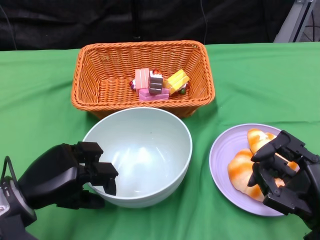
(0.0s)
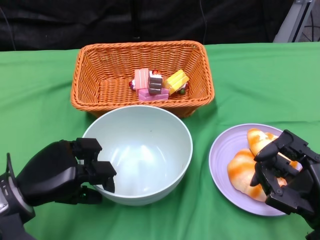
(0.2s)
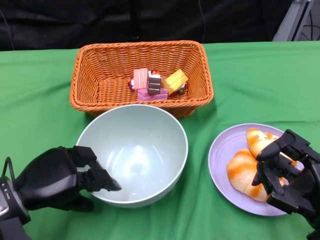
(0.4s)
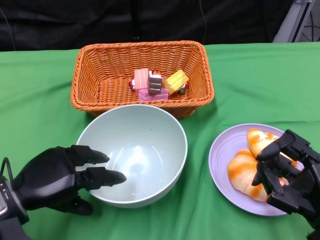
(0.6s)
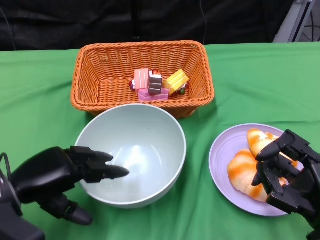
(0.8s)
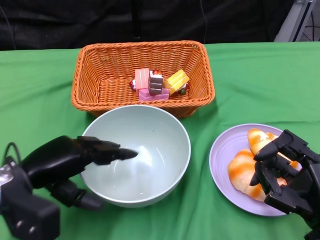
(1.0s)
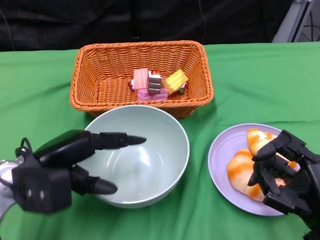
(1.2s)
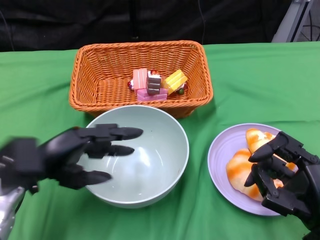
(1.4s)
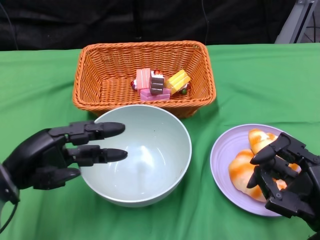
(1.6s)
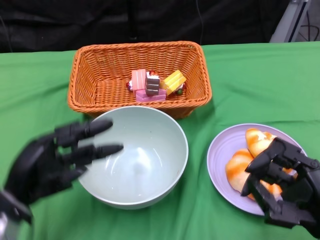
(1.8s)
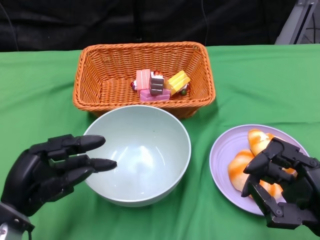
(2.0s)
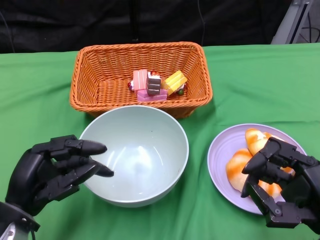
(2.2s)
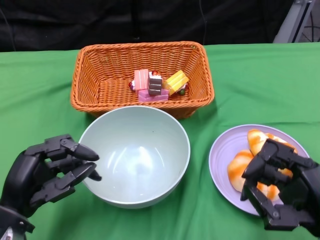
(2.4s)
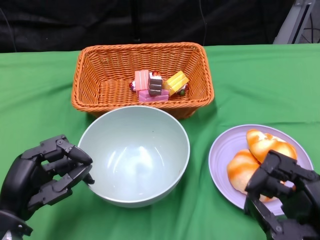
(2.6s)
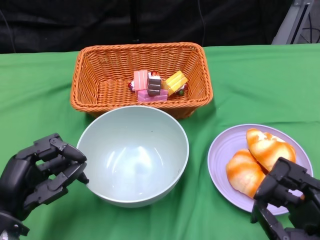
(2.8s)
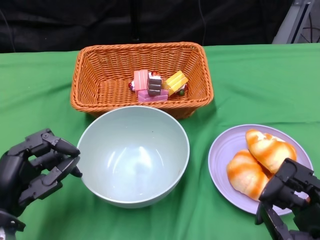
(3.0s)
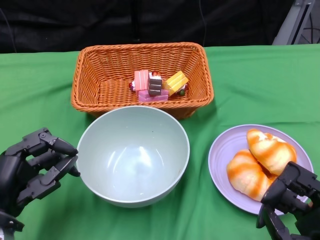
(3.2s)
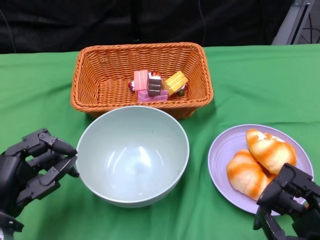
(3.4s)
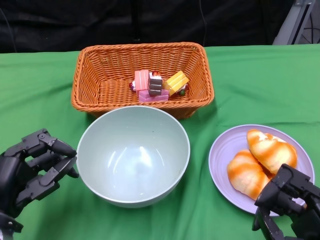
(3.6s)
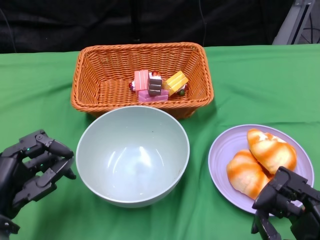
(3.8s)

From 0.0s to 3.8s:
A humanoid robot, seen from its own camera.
From 1.2s to 2.6s: The left hand shifts about 5 cm backward.
From 2.6s to 3.8s: The hands move only a little.

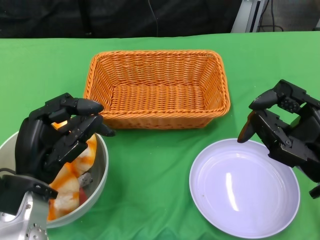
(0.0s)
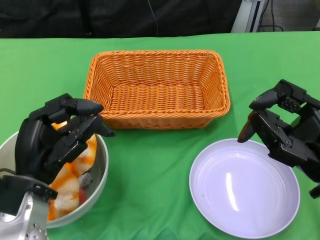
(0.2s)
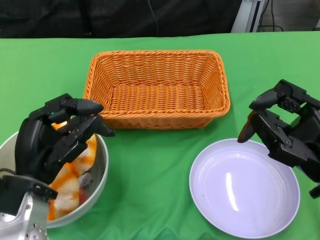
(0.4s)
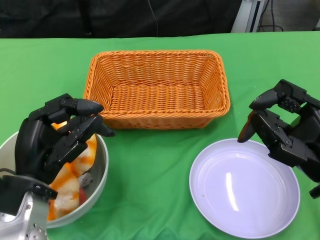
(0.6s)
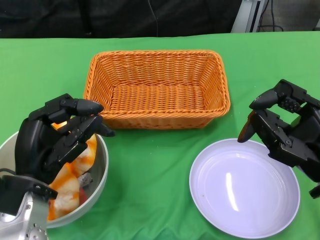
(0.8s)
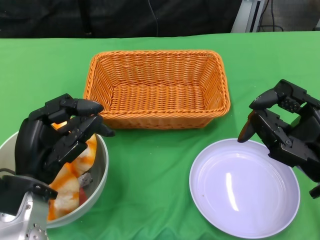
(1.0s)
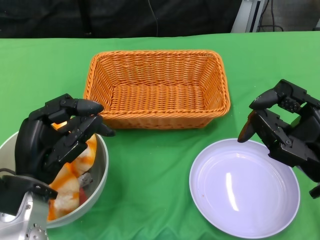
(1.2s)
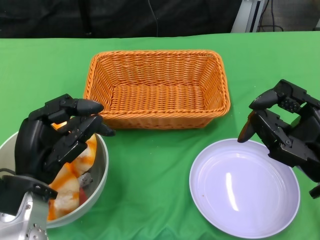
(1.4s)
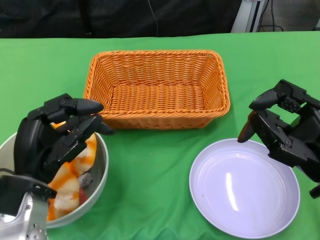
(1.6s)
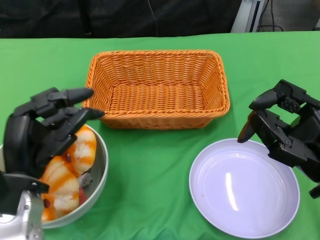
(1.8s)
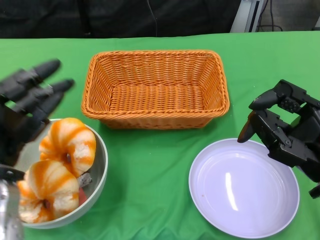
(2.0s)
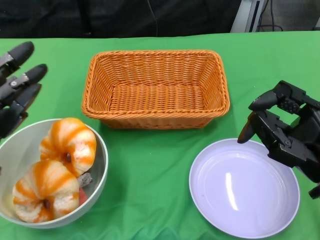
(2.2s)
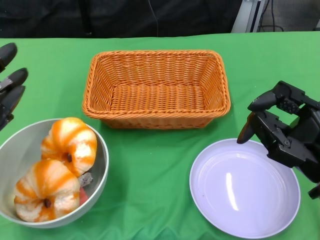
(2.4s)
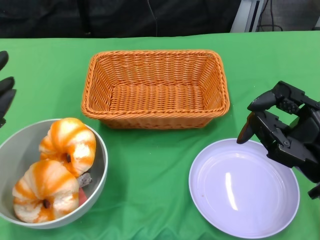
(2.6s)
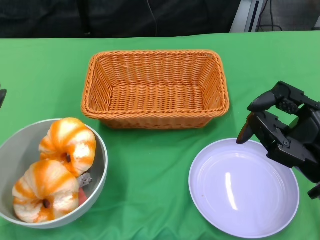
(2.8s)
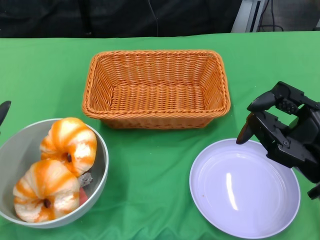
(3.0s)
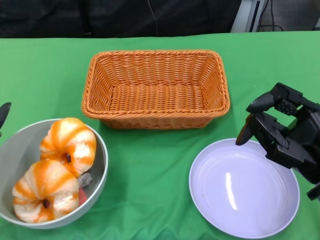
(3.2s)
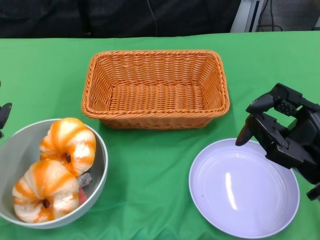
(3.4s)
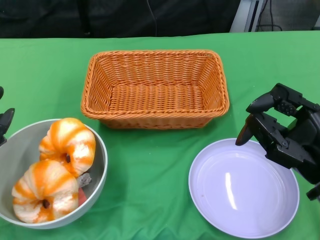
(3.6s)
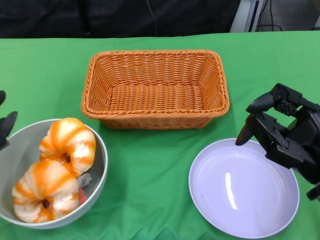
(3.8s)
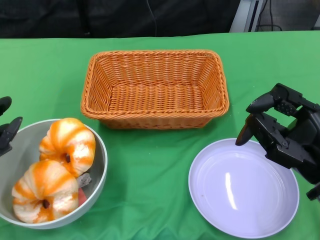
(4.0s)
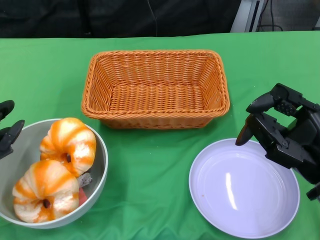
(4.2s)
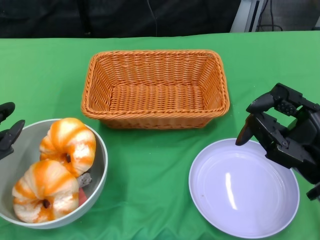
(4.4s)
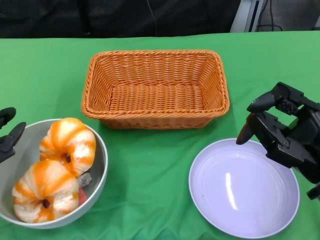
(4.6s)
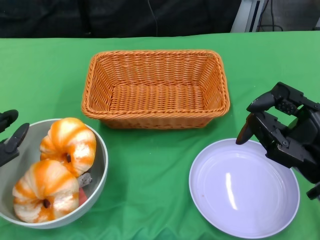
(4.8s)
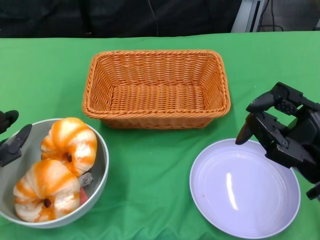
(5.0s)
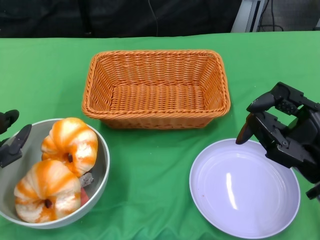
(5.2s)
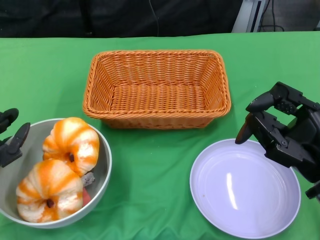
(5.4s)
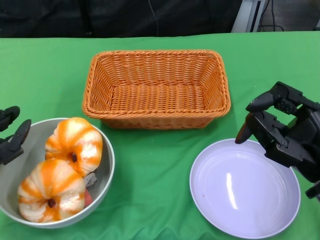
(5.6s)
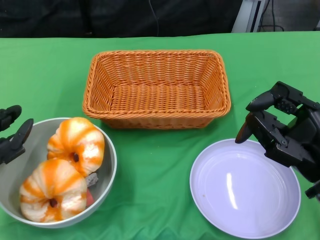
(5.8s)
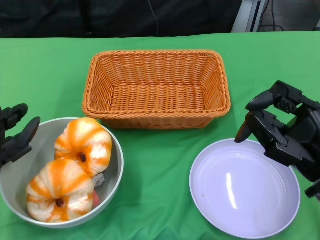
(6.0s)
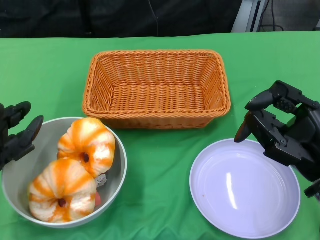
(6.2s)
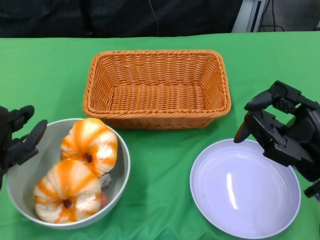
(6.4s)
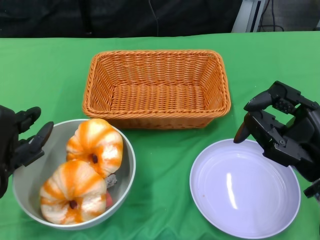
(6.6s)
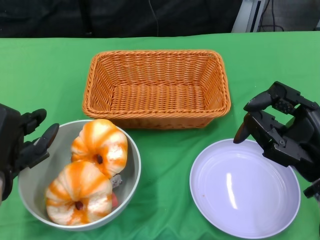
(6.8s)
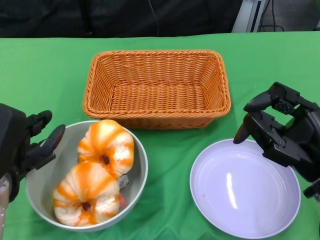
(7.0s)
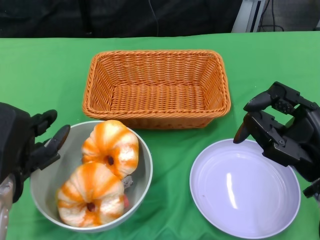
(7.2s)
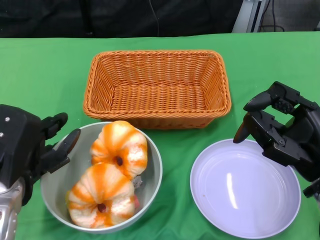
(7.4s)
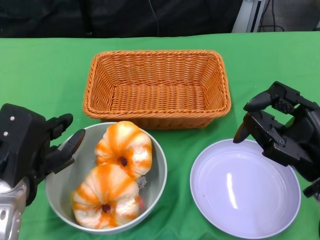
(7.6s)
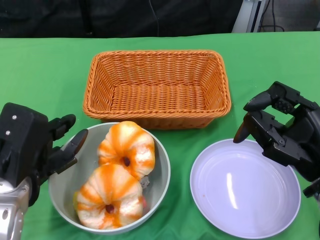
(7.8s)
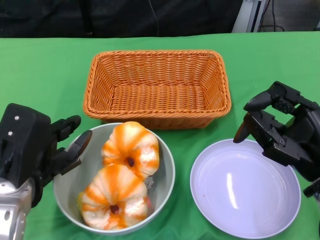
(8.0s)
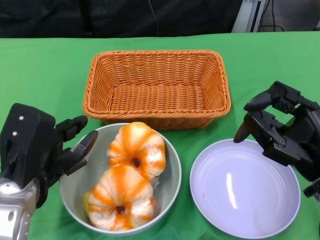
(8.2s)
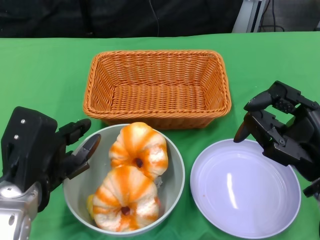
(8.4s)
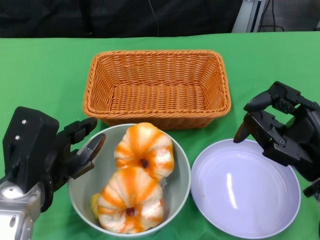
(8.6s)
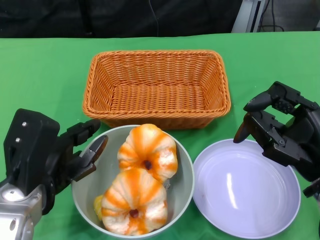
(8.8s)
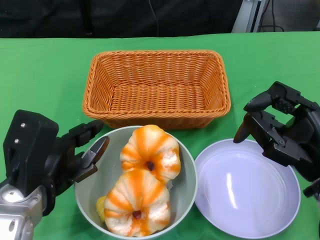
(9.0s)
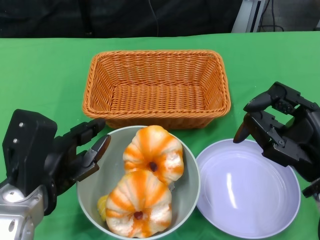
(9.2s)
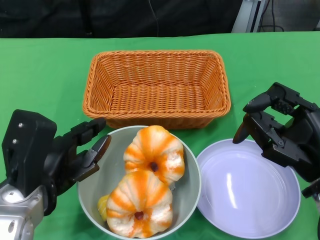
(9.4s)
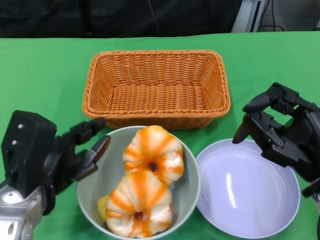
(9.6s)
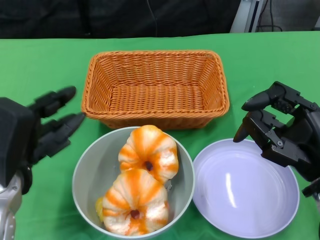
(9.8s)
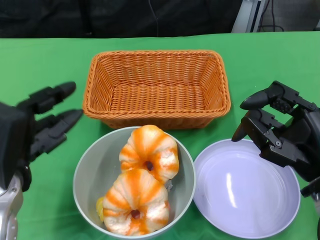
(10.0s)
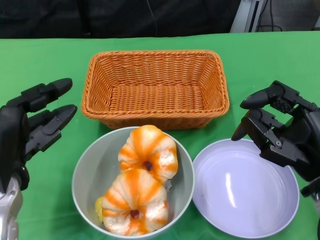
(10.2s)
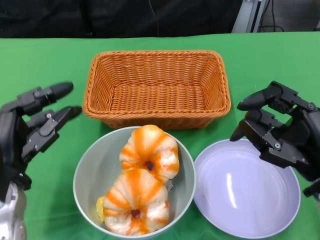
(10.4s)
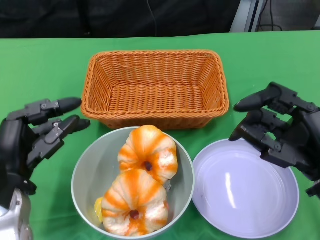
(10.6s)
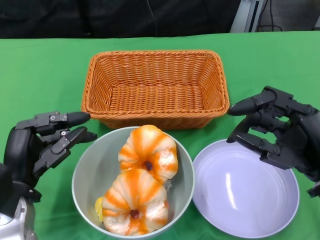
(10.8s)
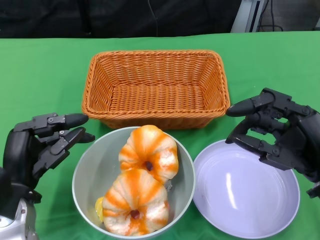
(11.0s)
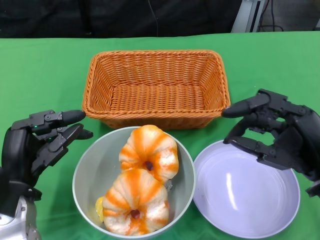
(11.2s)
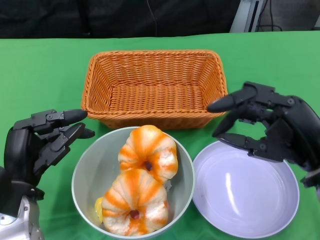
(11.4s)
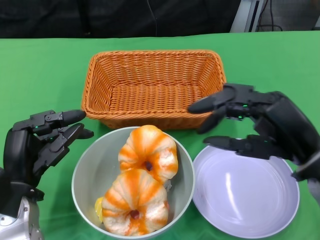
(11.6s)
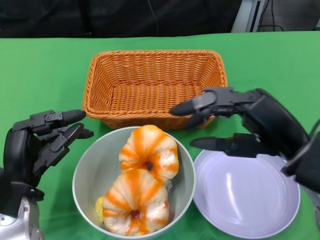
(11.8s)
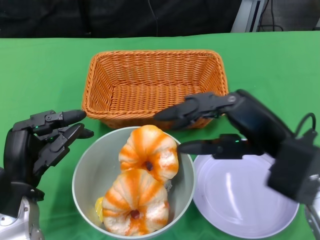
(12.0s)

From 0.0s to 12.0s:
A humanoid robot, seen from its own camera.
Step, from 0.0s to 10.6s: Push the bowl to the center of the table using the left gripper.
From 1.6s to 3.0s: The left hand moves to the left, some 10 cm.
From 3.0s to 4.4s: There are only small adjustments of the hands.
From 4.4s to 6.0s: The hands stay close to where they were, moving slightly.
From 6.0s to 7.6s: The left hand heads to the right, covering roughly 5 cm.
From 10.4s to 12.0s: The right hand goes approximately 5 cm upward and to the left.

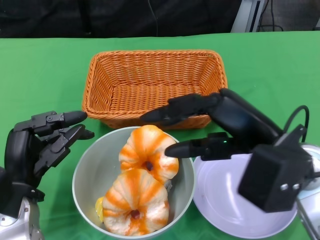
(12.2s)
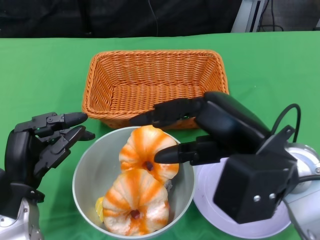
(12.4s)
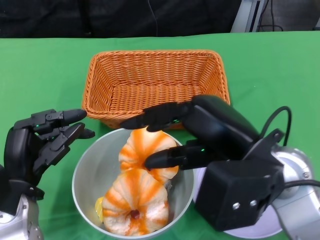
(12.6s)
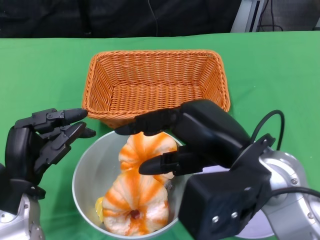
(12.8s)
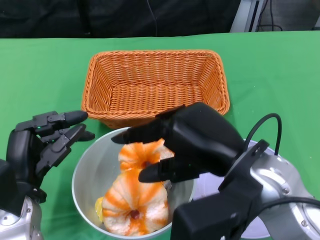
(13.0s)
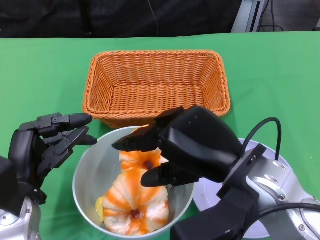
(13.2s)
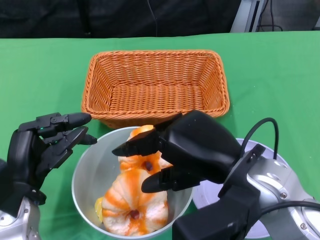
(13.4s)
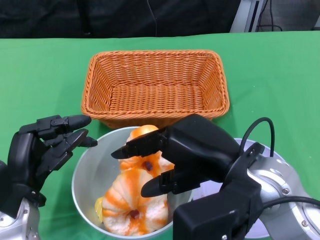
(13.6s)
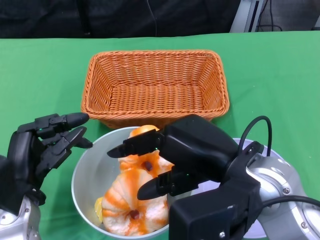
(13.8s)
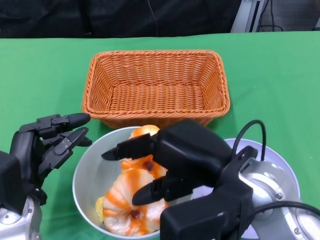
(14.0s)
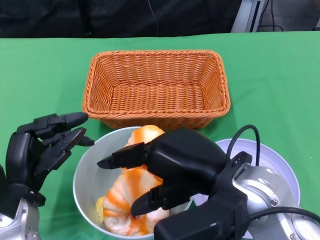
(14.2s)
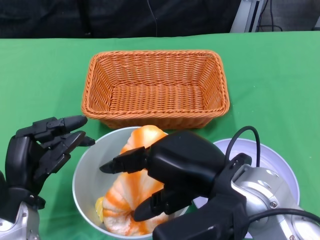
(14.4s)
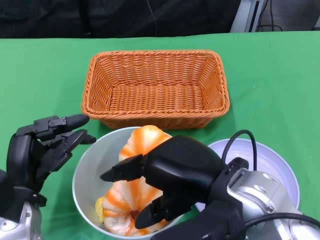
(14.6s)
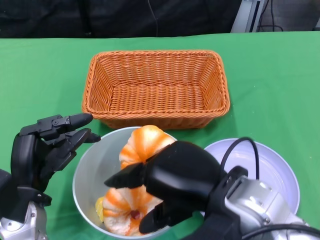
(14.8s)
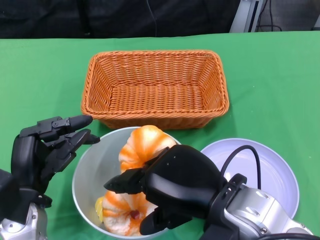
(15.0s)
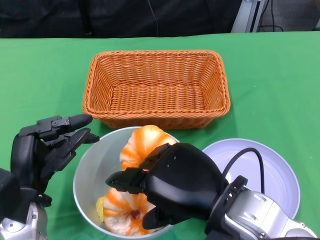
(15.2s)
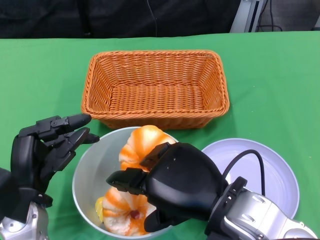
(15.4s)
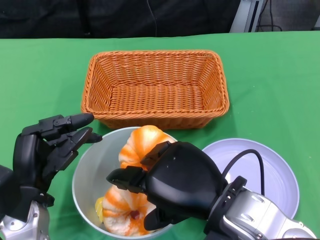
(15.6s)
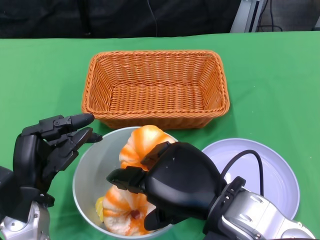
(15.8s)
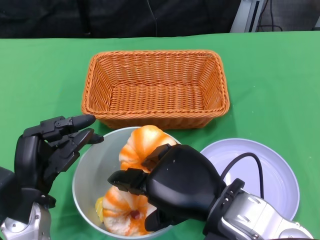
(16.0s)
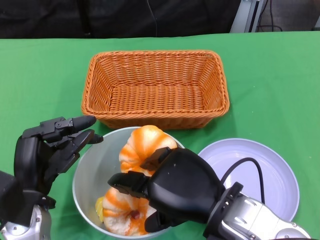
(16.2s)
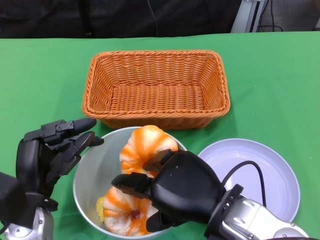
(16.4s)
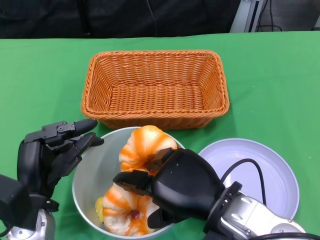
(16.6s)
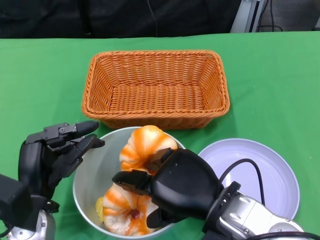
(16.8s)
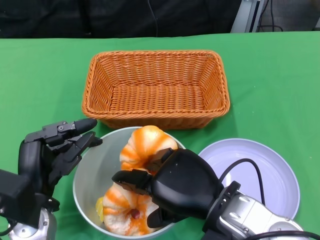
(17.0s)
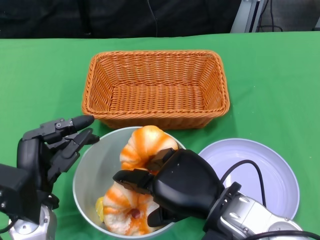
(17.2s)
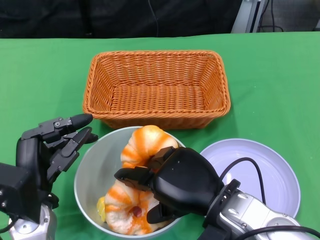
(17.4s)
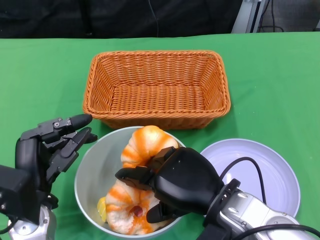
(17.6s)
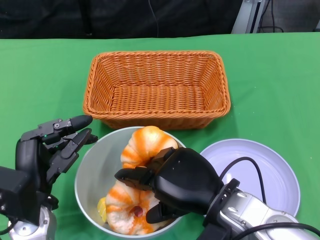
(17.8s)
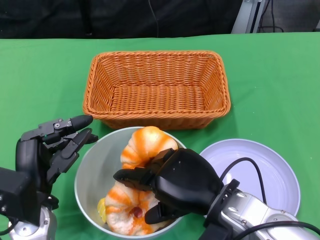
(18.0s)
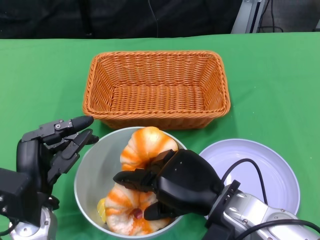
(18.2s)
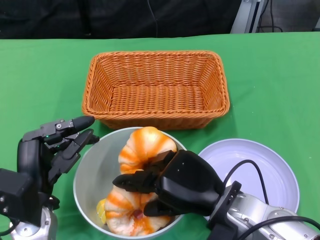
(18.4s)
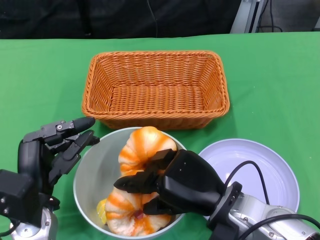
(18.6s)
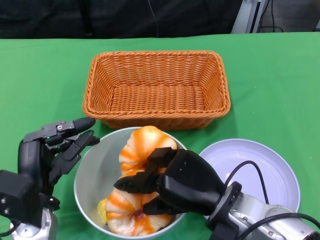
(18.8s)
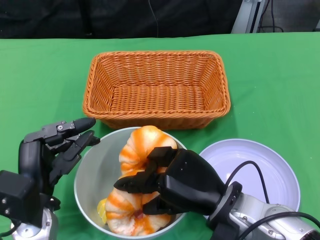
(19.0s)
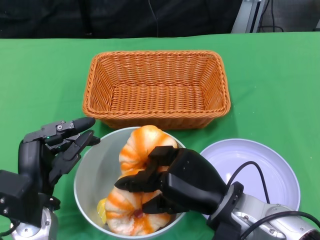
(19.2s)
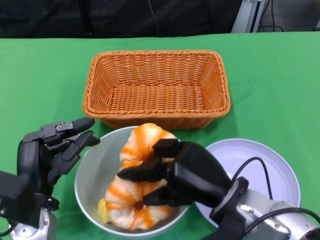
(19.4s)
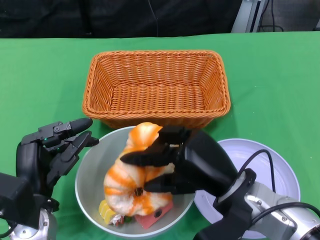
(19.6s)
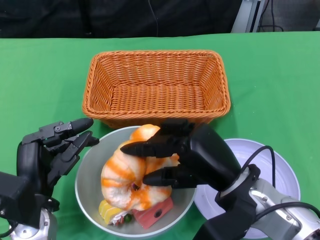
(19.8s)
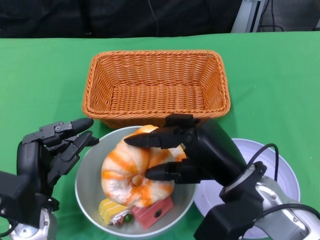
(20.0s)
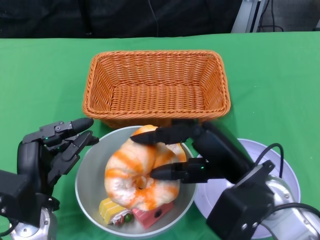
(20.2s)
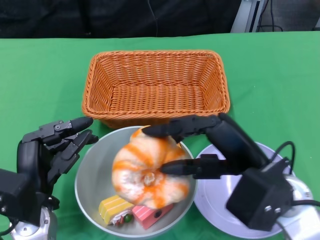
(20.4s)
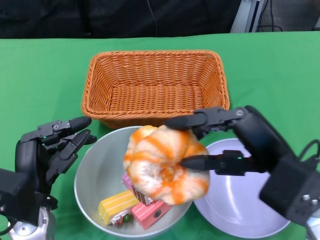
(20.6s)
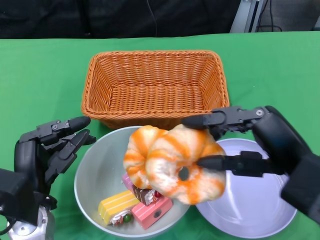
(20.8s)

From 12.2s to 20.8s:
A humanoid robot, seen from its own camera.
From 15.0s to 16.6s: The right hand changes place by roughly 5 cm.
From 16.6s to 18.0s: The hands stay close to where they were, moving slightly.
From 19.4s to 20.8s: The right hand shifts roughly 10 cm to the right and upward.
